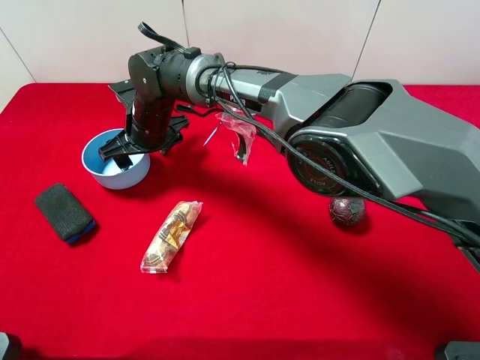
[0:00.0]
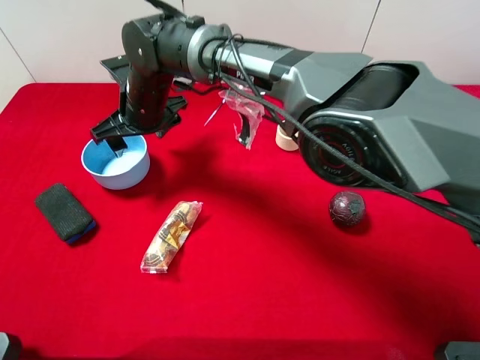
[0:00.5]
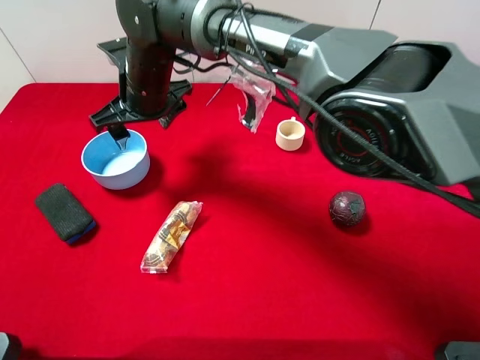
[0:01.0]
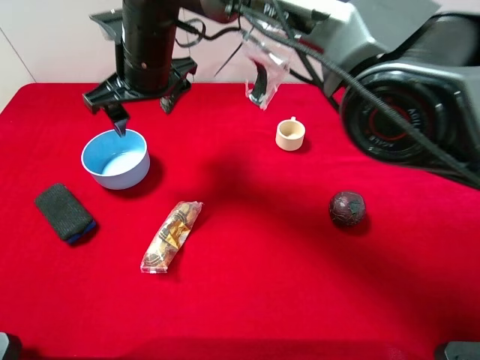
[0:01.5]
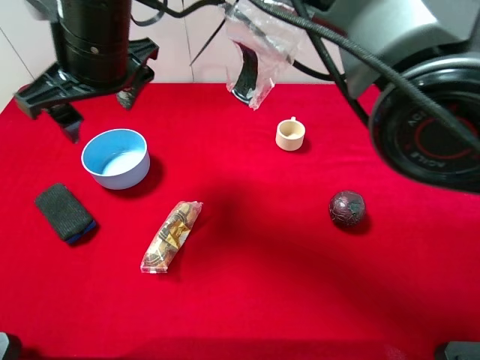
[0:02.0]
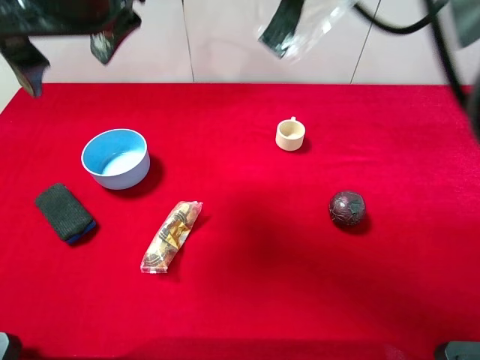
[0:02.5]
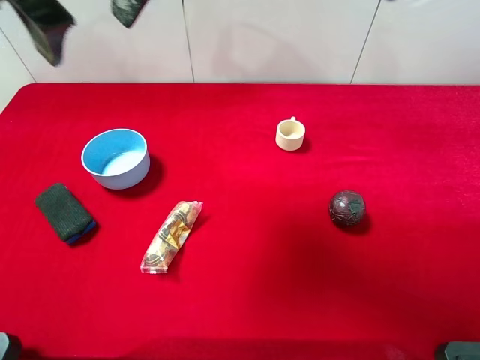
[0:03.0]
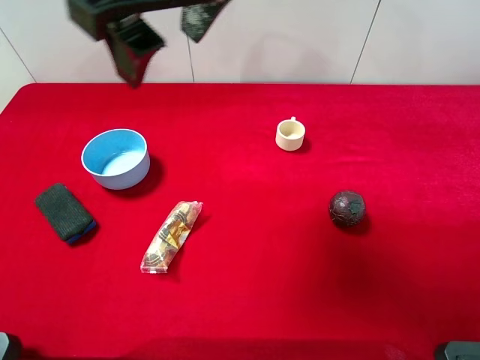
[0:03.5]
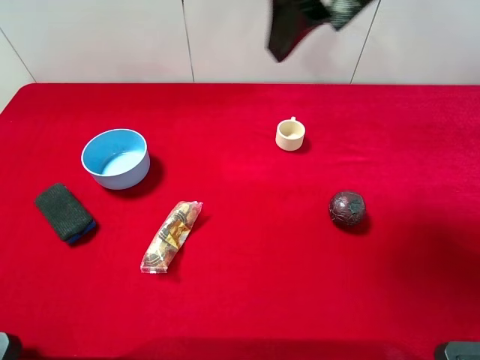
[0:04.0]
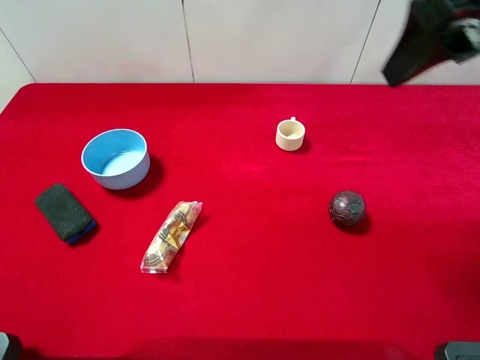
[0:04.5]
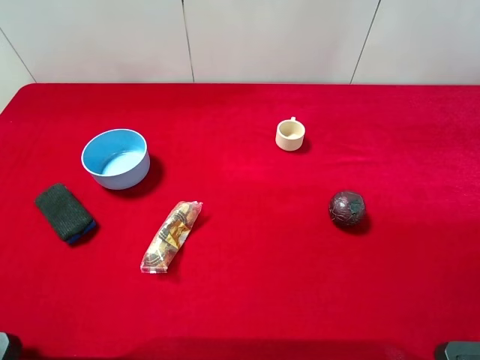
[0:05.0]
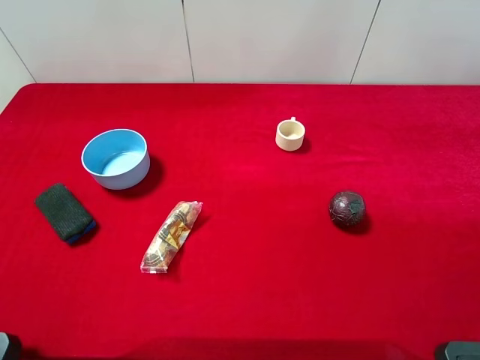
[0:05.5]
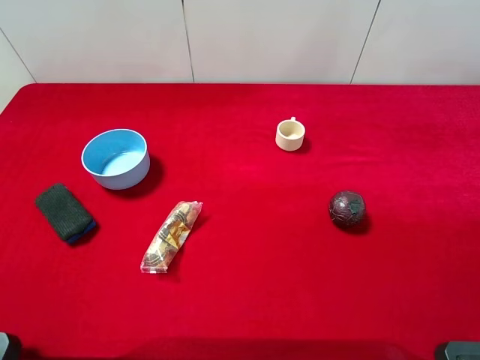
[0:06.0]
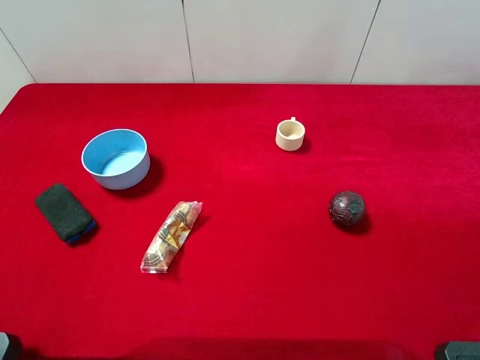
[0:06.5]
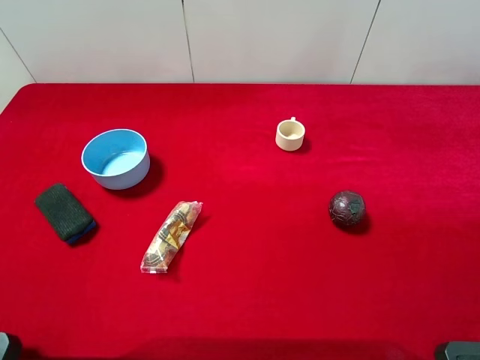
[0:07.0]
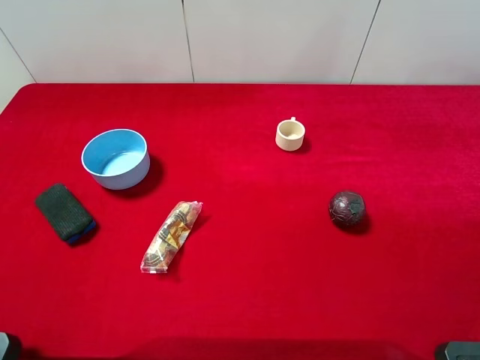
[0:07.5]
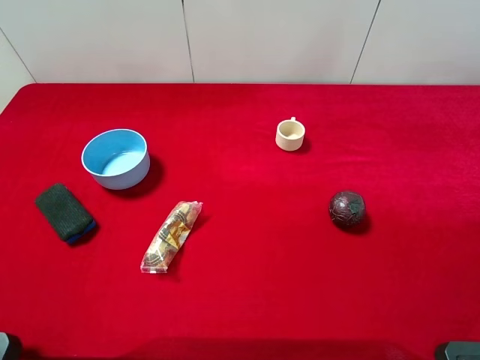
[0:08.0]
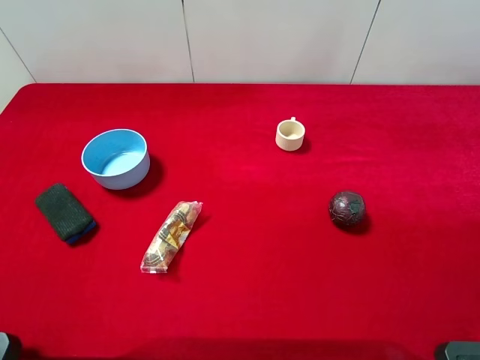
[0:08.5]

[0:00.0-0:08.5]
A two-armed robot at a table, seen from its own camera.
Task of the whole recording: the gripper move the object.
0:00.0 to 0:02.0: The right gripper is displaced upward and backward by approximately 20 cm.
0:02.0 to 0:04.0: The right gripper shifts roughly 25 cm to the right and upward.
0:04.0 to 0:06.5: The right gripper heads backward and to the right, covering roughly 30 cm.
0:06.5 to 0:08.5: Both grippers stay about where they are.
